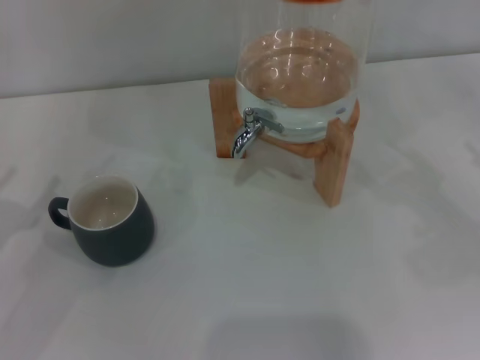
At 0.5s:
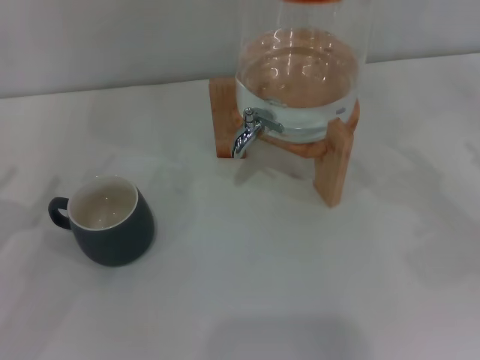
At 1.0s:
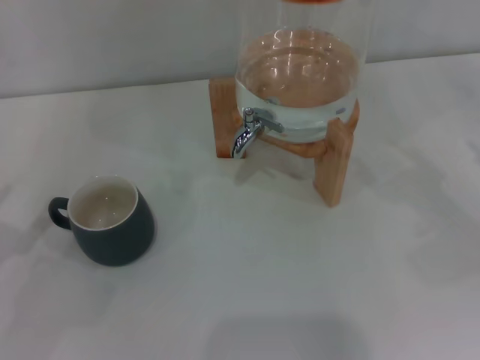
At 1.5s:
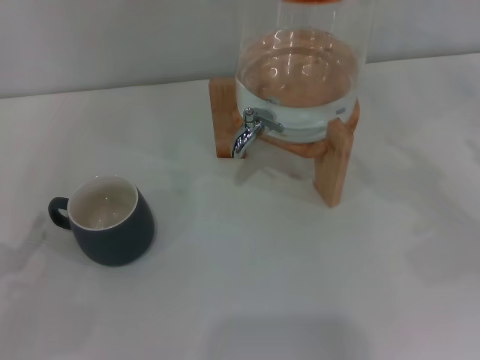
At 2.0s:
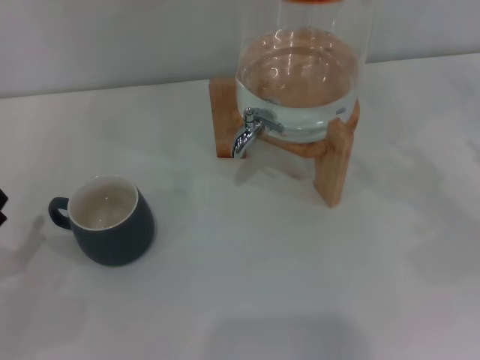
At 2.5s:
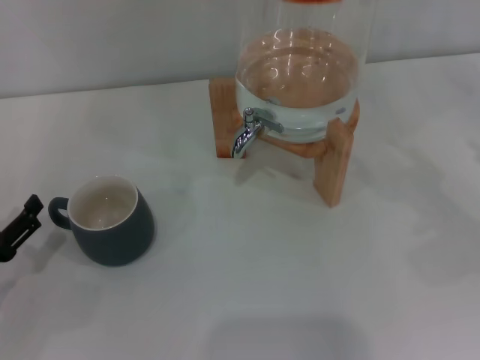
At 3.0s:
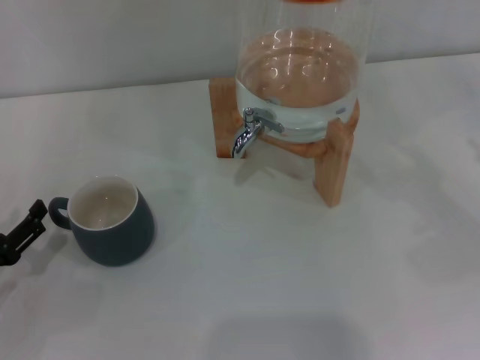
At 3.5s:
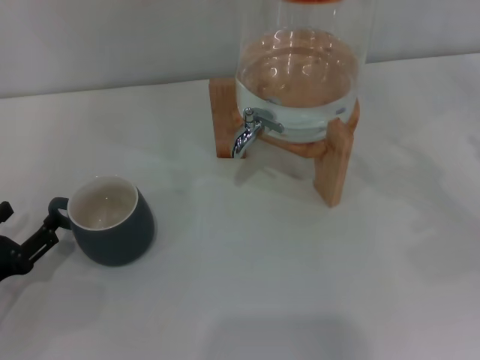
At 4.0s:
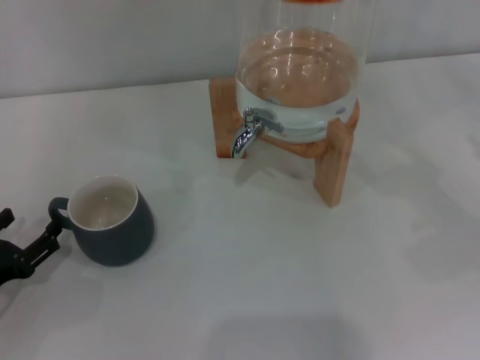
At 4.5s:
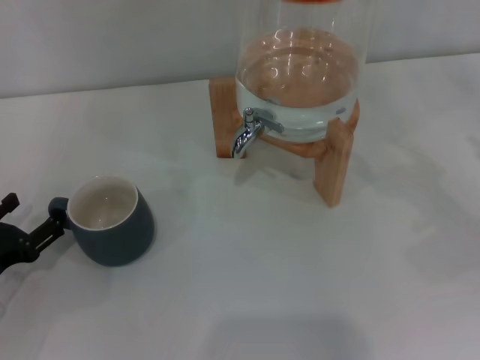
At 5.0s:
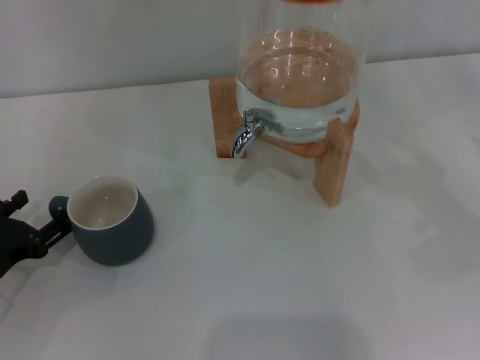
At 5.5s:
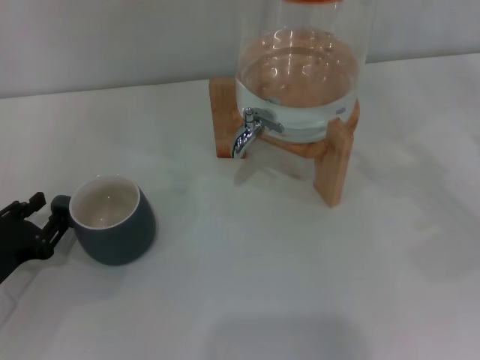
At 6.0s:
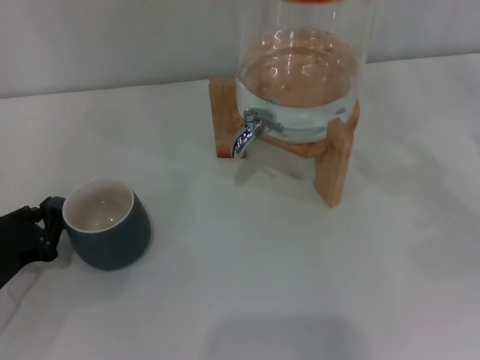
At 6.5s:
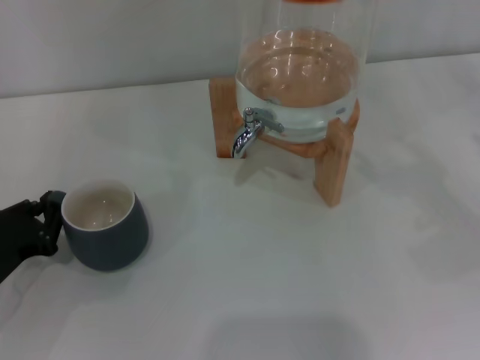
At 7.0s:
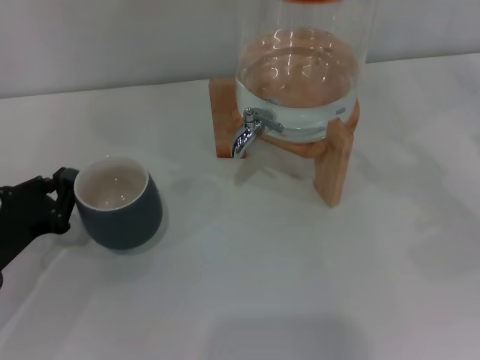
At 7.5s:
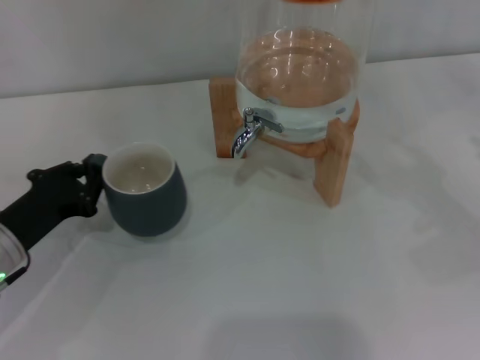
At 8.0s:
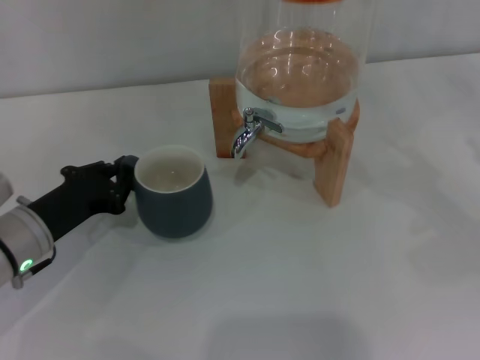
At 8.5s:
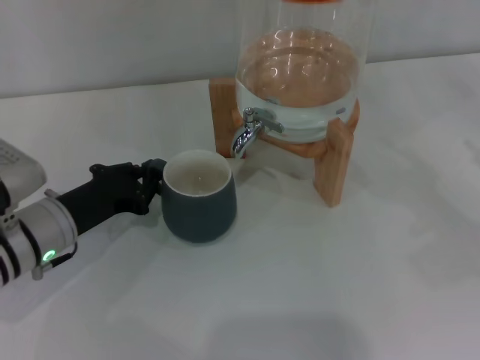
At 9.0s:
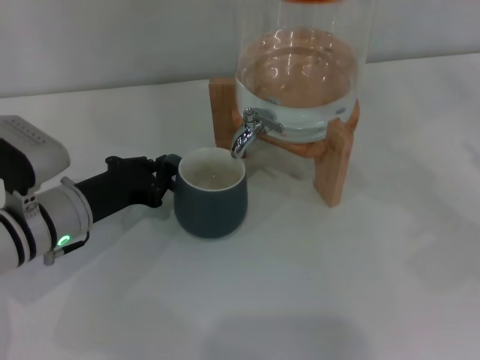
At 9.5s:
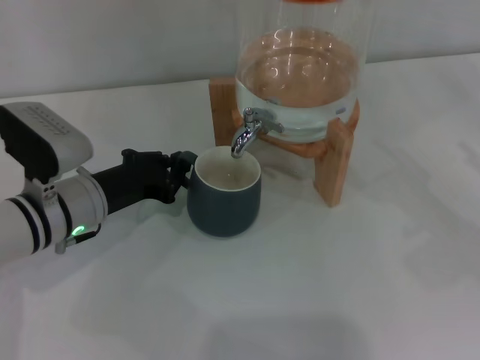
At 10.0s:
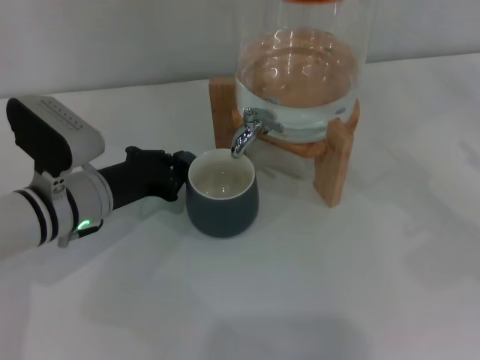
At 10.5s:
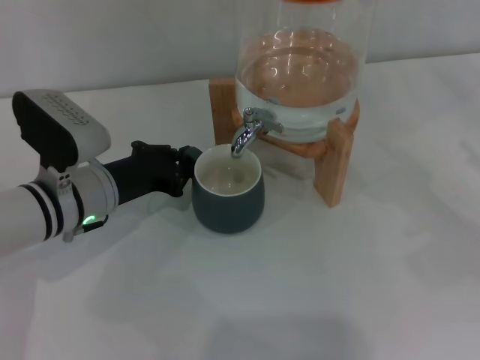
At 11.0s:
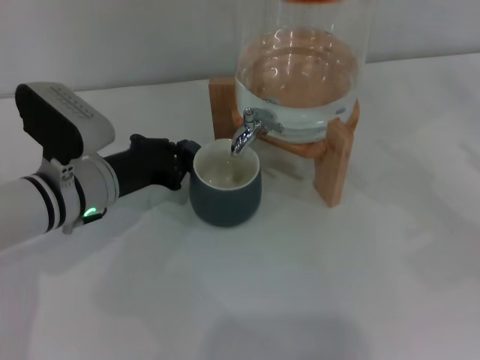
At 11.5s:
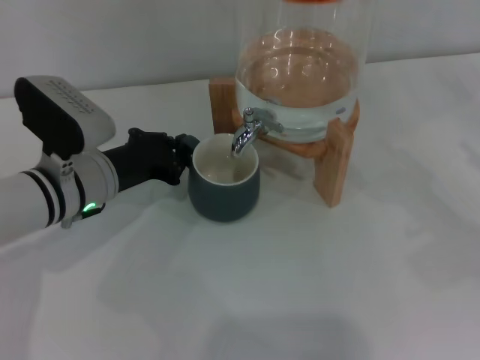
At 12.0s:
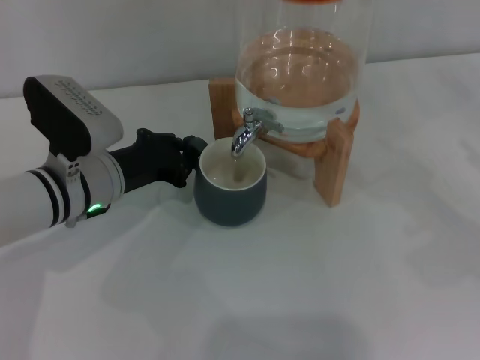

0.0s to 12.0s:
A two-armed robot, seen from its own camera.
Task of the whole recording: the left gripper pick up the black cup and place it horizontally under the faucet, the right gripper turn on the faucet to fill the cup, and then turn off the faucet.
2.0s to 4.0s: The grippers make only small movements.
4.0s to 6.0s: The left gripper closes.
6.0s to 8.0s: The left gripper moves to the right and forward, approximately 10 cm.
8.0s to 10.0s: The left gripper heads to the right, covering about 5 cm.
10.0s to 12.0s: The grippers stay close to where they were, moving slightly.

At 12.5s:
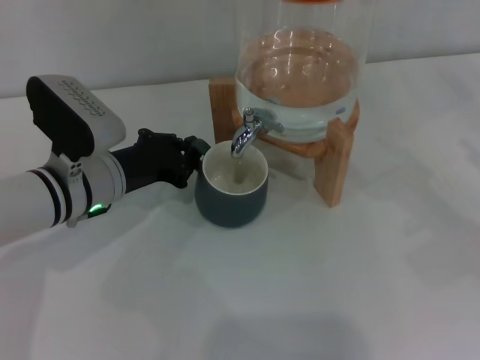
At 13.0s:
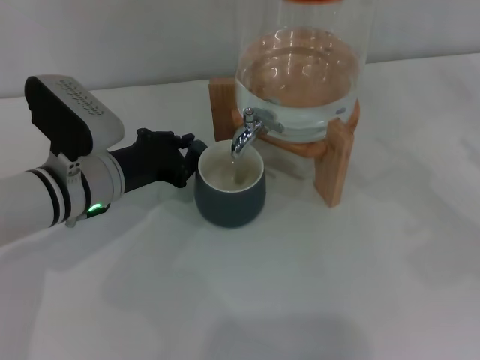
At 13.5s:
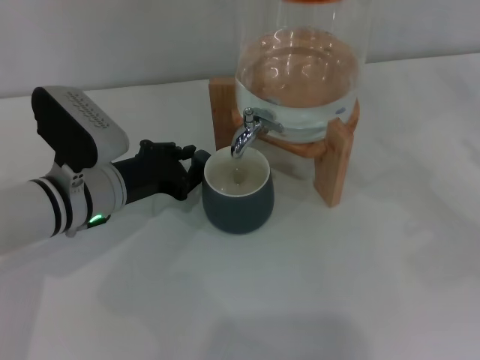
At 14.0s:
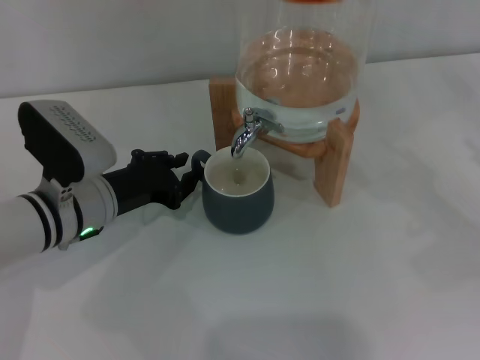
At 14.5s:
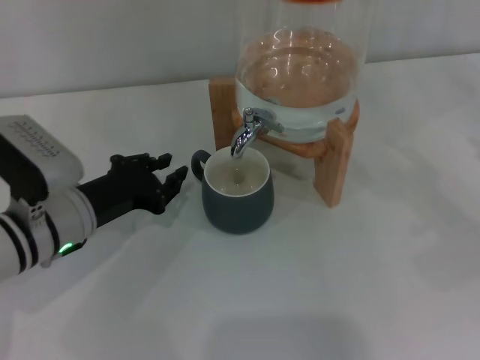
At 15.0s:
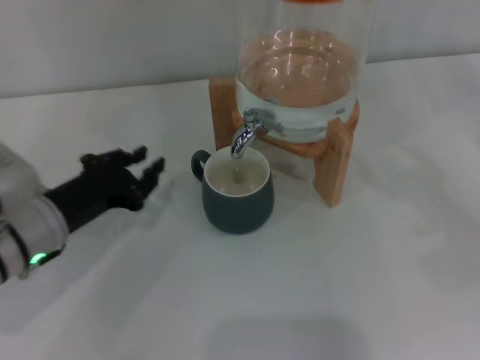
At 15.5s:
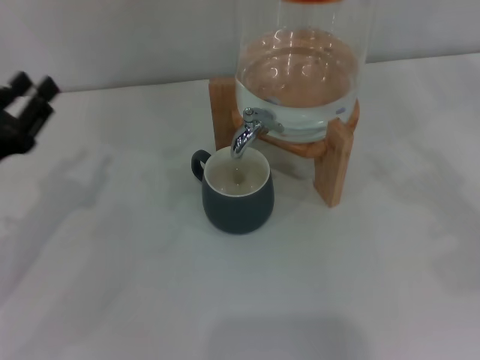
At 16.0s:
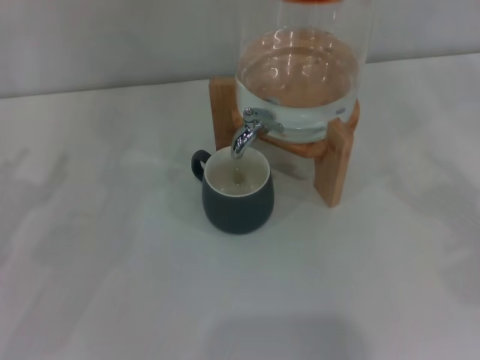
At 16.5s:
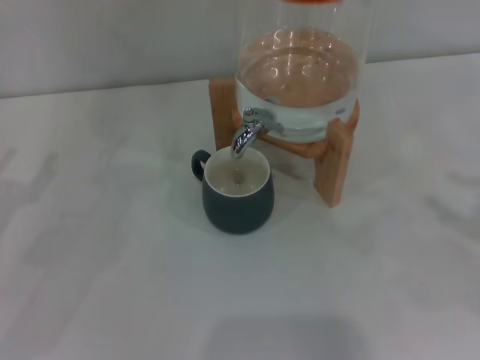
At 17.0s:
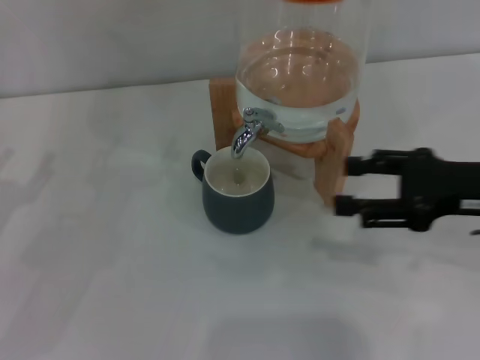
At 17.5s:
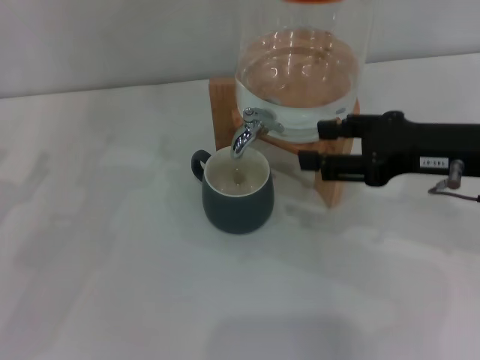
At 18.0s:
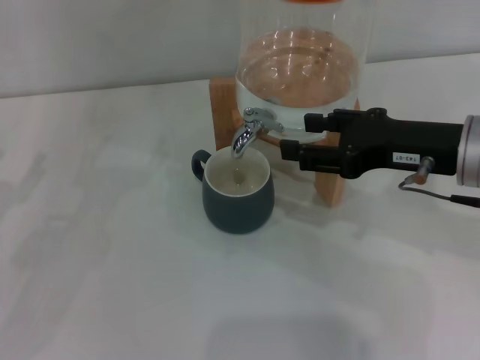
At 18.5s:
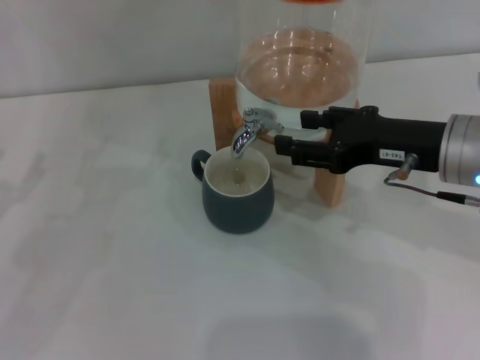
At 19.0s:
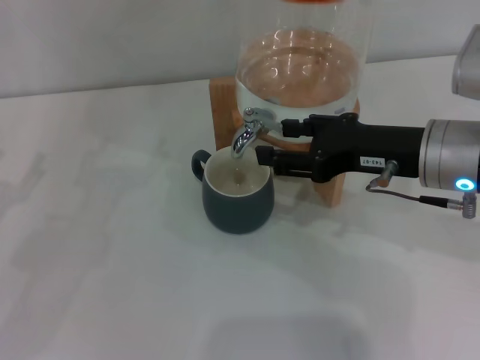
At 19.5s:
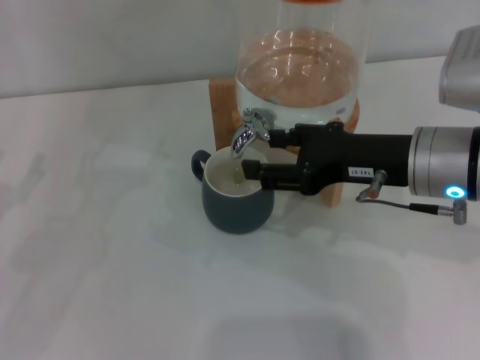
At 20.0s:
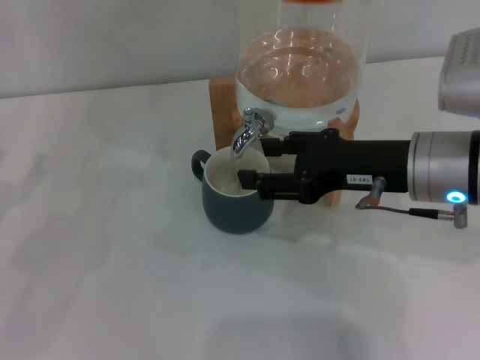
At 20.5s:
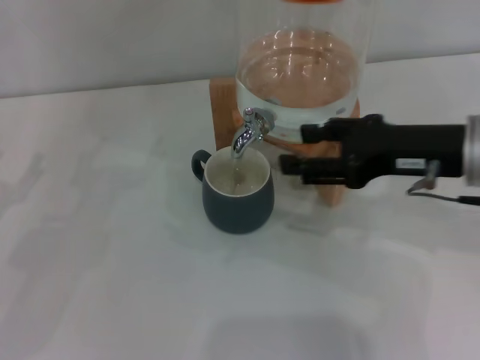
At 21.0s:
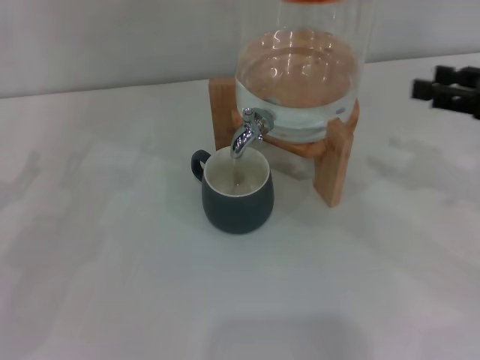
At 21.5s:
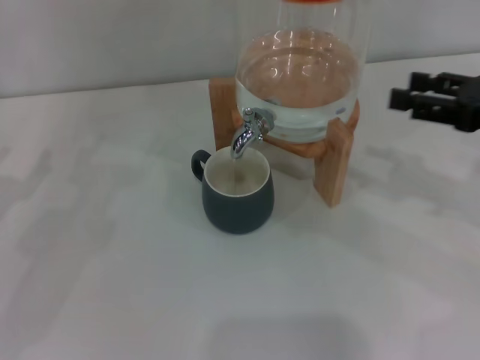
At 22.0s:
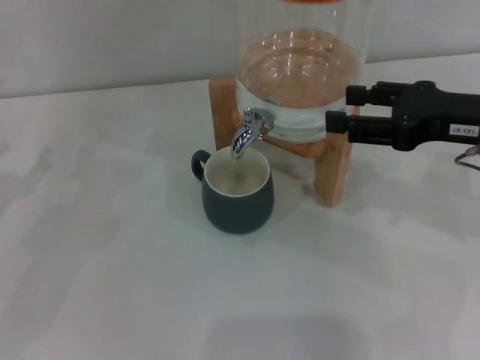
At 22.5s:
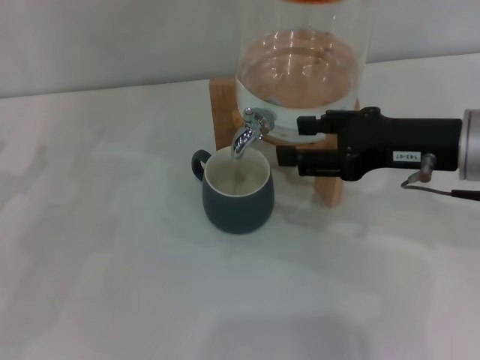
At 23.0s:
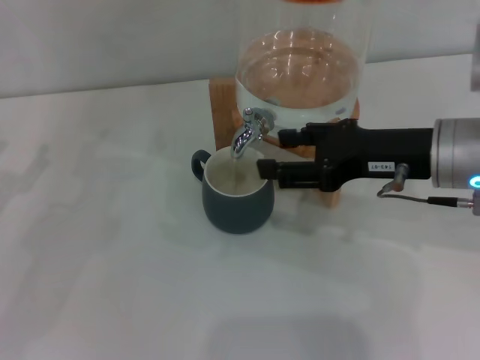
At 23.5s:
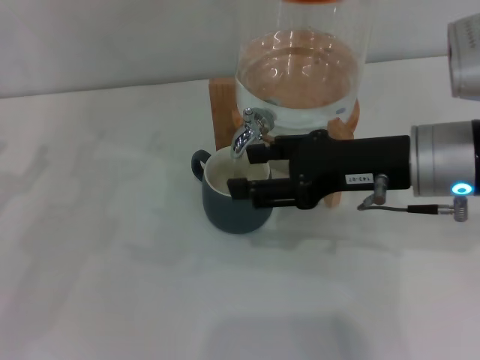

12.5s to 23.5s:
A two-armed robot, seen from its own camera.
Task of the whole recording: the left gripper pick up the black cup and place it horizontally under the faucet, the right gripper turn on the faucet to fill the cup, and then turn off the faucet.
Step, 12.5s to 14.5s: Move the cup beneath the water dispenser nozzle with the left gripper.
12.5s to 14.5s: The left gripper ends up some 5 cm from where it was.
14.5s to 16.0s: The left gripper travels to the left by some 10 cm, and opens its fingers.
16.0s to 18.0s: The right gripper heads to the left, covering roughly 20 cm.
18.0s to 20.0s: There are only small adjustments of the grippers.
20.0s to 21.5s: The right gripper moves to the right, some 15 cm.
21.5s to 23.5s: The right gripper moves to the left, about 15 cm.

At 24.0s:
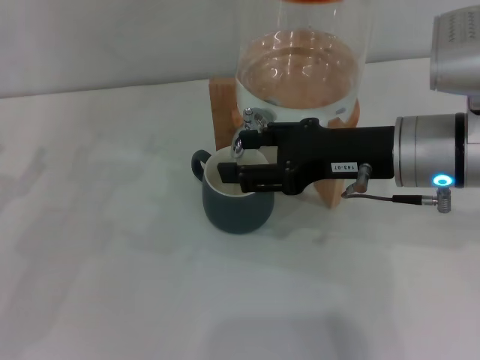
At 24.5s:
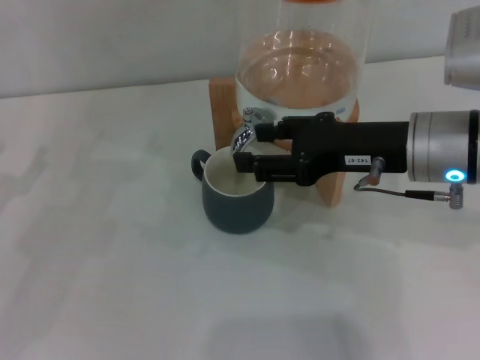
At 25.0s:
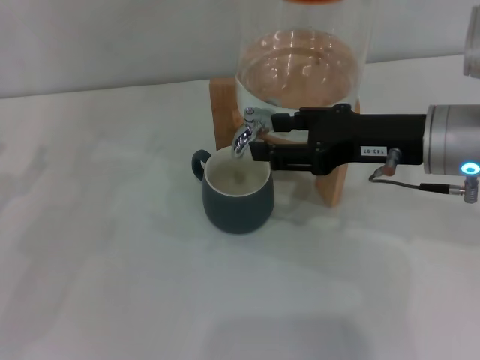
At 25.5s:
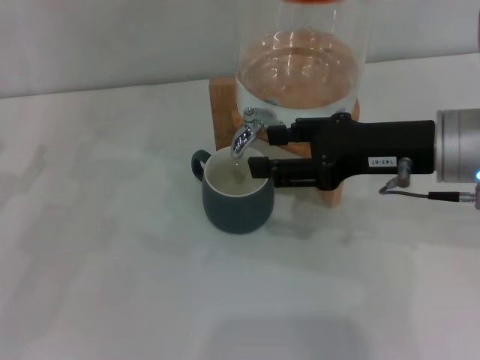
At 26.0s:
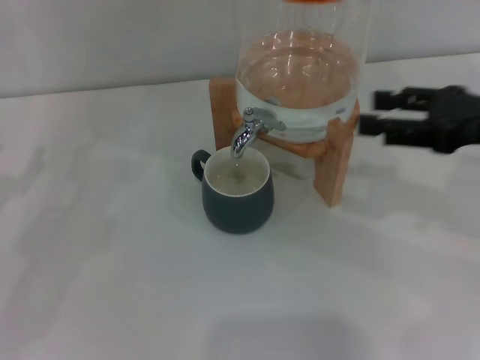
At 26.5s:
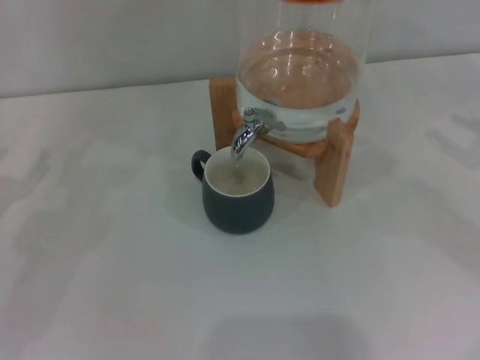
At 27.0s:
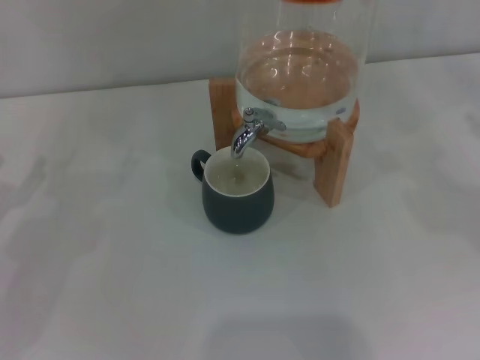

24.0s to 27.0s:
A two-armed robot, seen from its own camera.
Task of the whole recording: the left gripper pick up the black cup and place it horizontally under the faucet, the right gripper turn on the faucet to fill the cup, and then turn off the faucet.
Step, 24.0s to 25.5s: Close the dispenser valve with the right gripper.
24.0s to 25.5s: The grippers move only a little.
25.5s to 27.0s: The right gripper moves to the right, approximately 25 cm.
